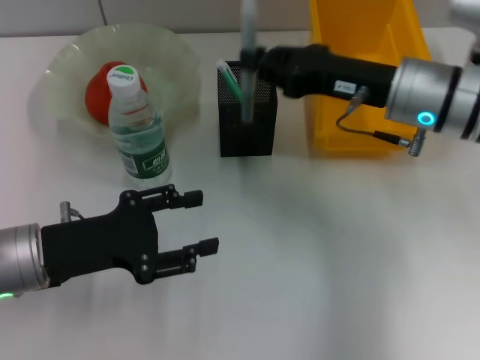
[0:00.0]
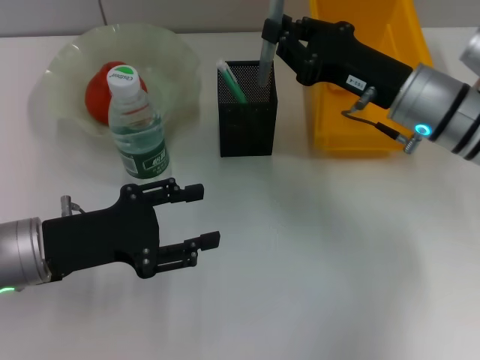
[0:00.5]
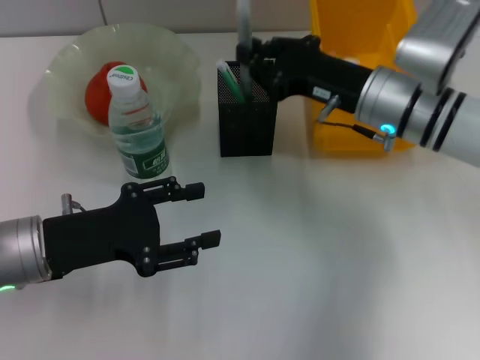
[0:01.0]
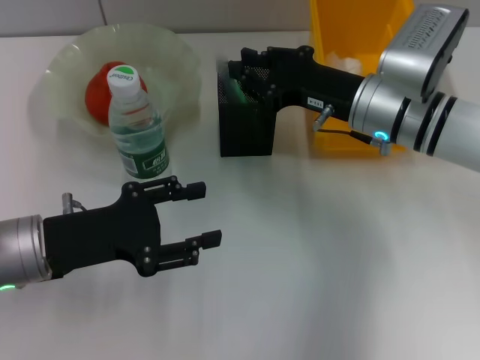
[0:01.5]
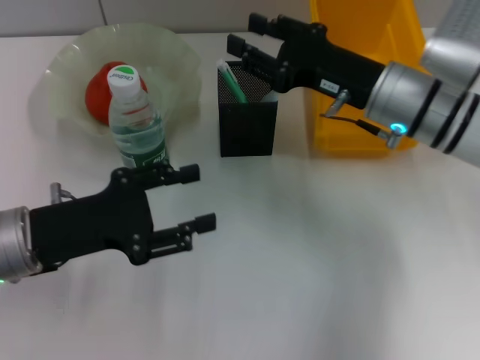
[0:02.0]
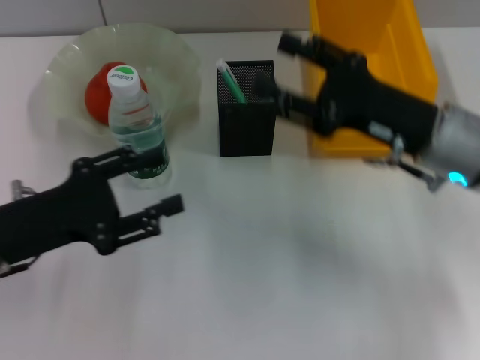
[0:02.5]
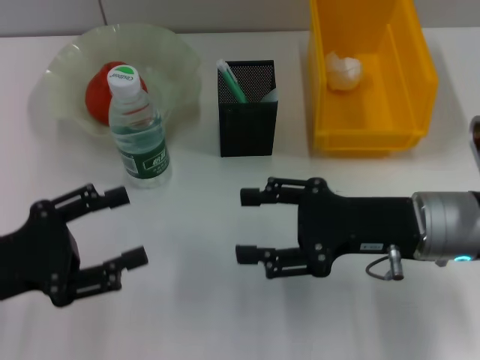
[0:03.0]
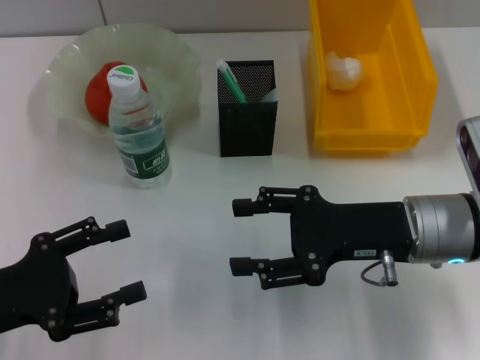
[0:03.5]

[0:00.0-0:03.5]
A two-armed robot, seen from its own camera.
Step, 0:00.0 to 0:02.0: Place the gray glue into the pen holder with the right hand.
0:00.0 to 0:02.0: There are only small adjustments of the grippers.
0:02.0 to 0:03.5: The right gripper goes about 10 cm backward, and opens, while the left gripper heads backward and to the left, covering some 10 cm.
